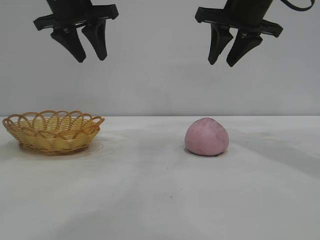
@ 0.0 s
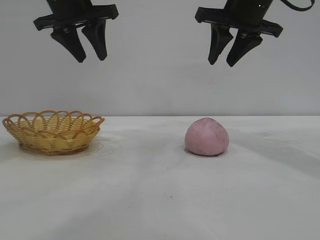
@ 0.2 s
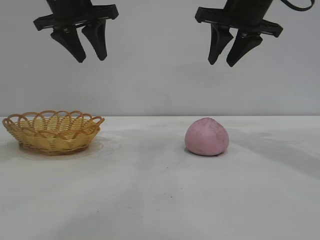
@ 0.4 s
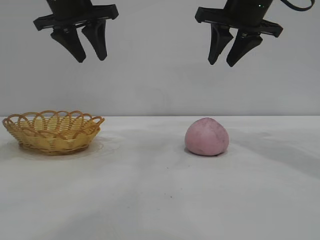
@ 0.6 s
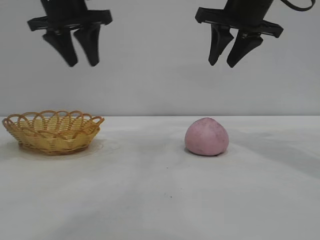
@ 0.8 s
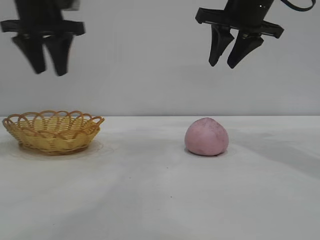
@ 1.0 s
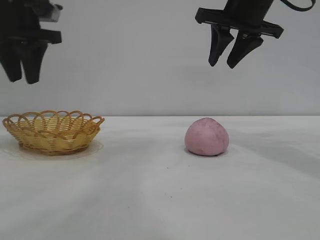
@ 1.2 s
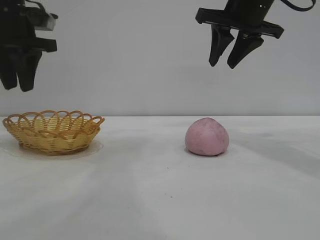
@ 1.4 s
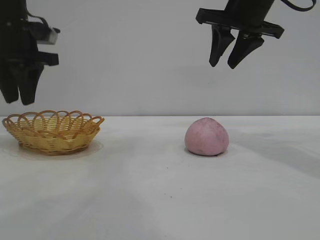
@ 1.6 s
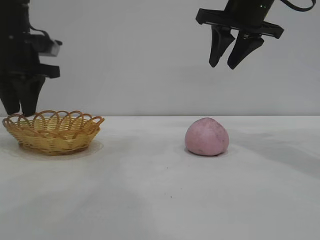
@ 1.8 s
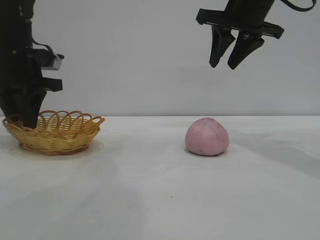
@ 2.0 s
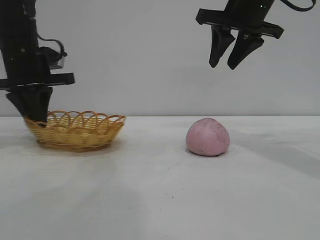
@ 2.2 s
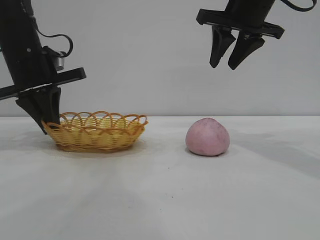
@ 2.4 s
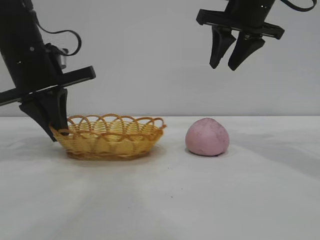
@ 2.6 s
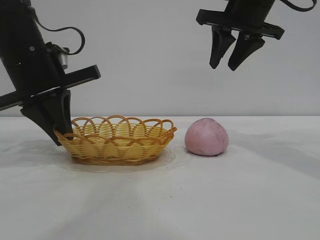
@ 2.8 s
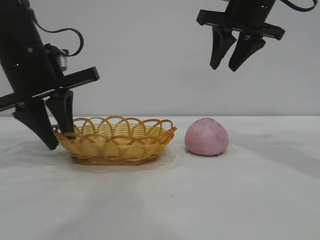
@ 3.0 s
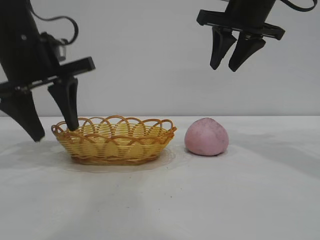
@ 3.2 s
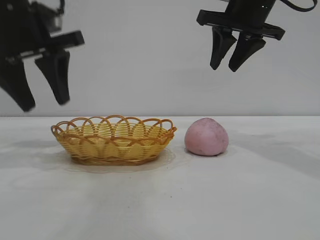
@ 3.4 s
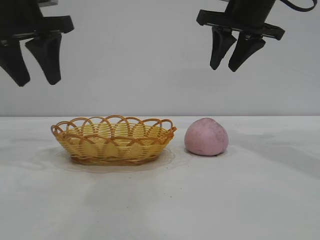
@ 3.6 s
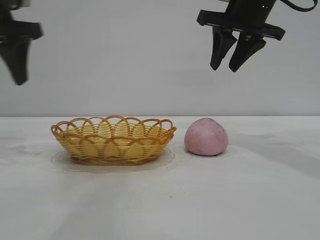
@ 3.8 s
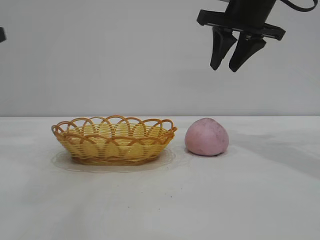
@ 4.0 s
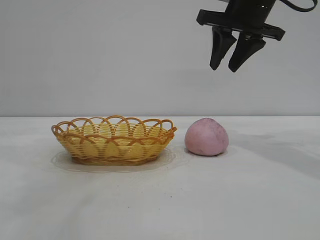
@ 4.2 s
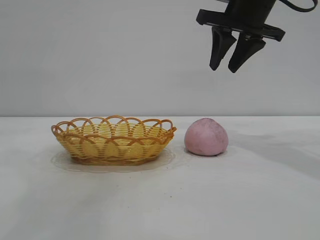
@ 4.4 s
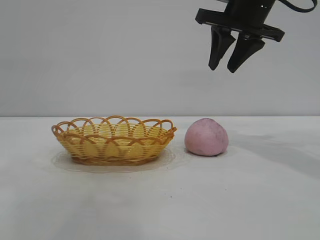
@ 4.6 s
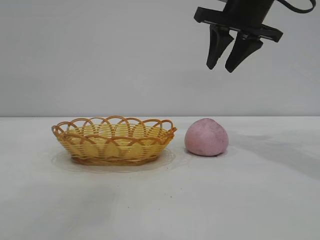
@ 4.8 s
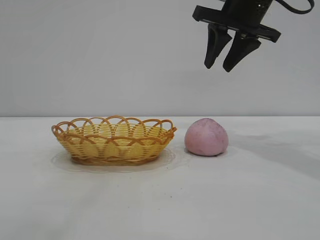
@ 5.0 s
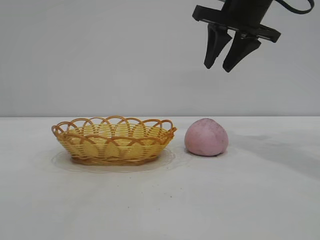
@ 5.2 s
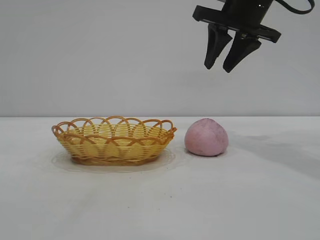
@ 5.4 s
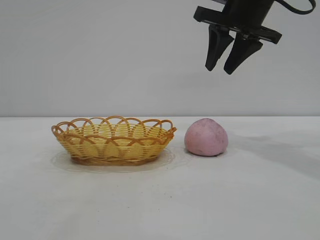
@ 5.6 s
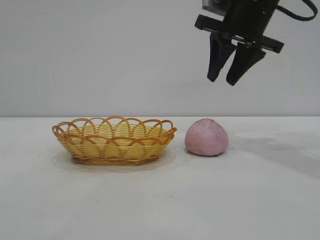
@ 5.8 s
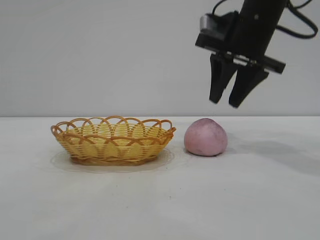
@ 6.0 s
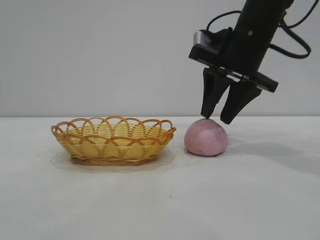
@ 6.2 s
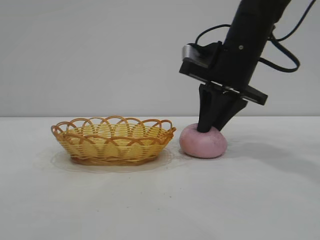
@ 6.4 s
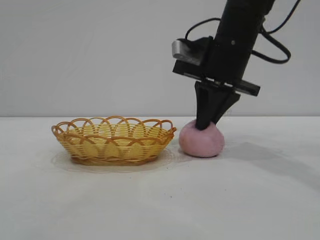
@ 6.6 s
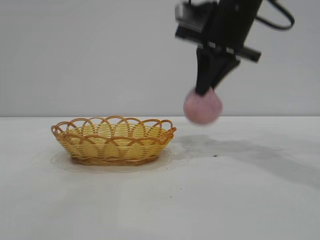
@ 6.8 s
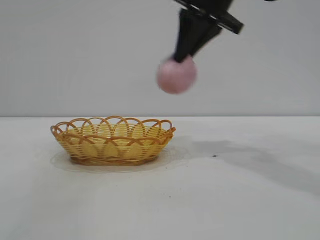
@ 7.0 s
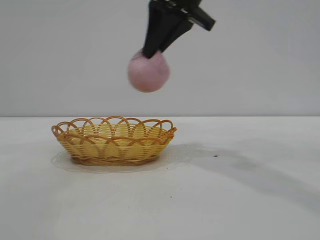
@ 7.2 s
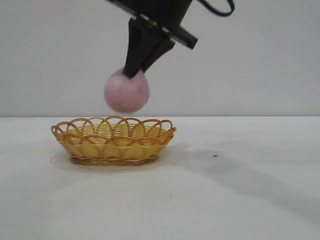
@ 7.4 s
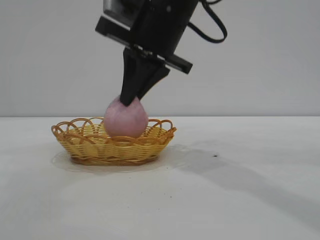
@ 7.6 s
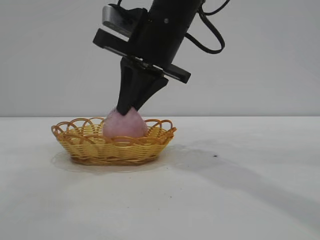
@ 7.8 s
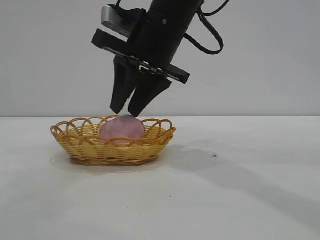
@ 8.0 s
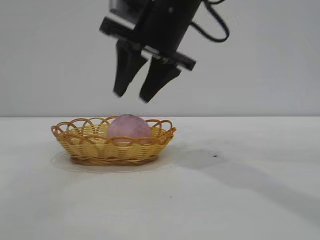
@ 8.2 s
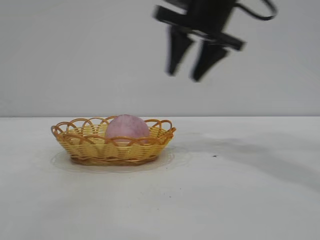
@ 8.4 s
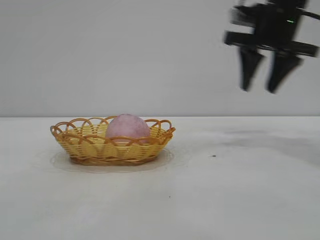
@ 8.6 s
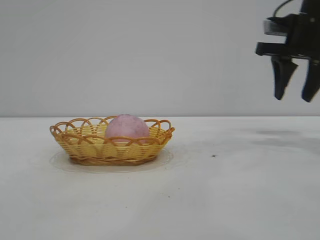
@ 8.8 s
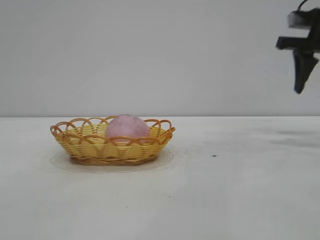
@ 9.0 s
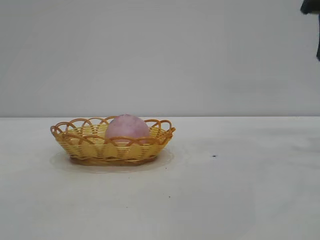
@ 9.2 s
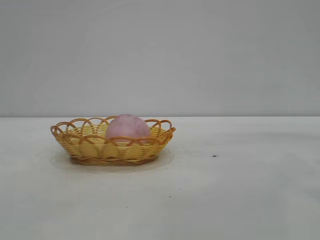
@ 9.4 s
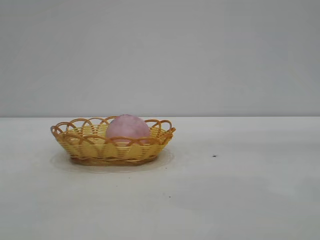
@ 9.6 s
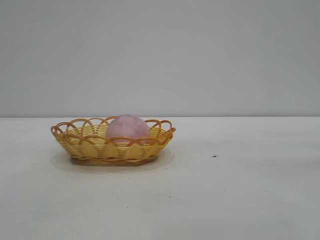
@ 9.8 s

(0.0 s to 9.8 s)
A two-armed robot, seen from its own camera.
Task of the whole recording: pick up the peach and put it into the basket.
Step, 0.0 s - 3.4 s: Move the basket to the center of view.
Step, 3.6 s - 6.6 s: Pick up the peach.
Step, 7.0 s - 8.2 s: place the peach into the basket.
